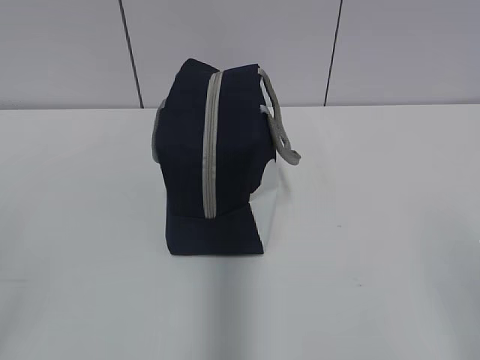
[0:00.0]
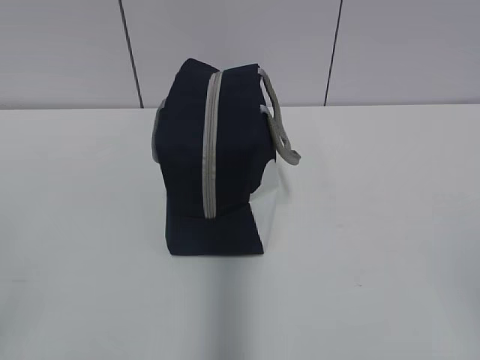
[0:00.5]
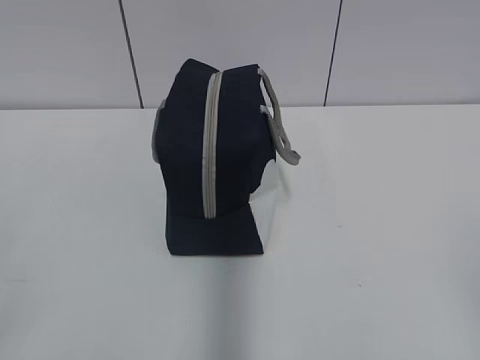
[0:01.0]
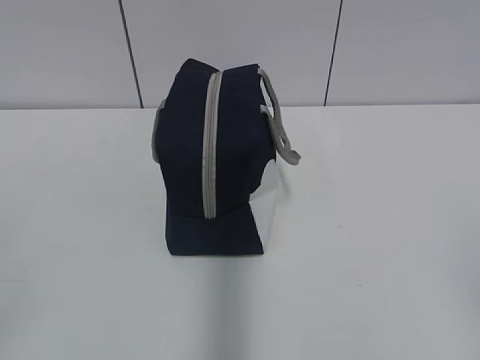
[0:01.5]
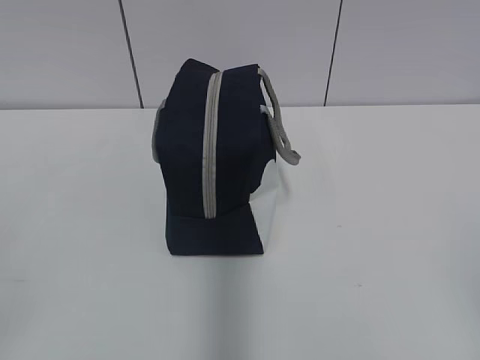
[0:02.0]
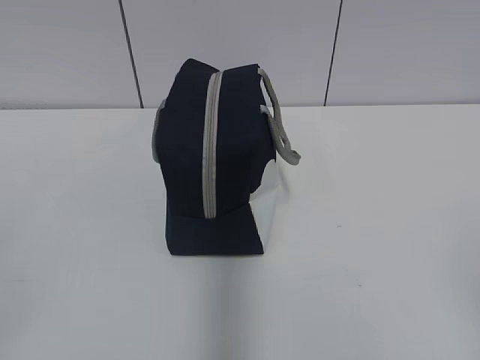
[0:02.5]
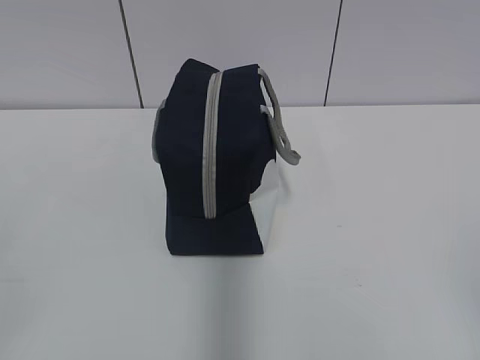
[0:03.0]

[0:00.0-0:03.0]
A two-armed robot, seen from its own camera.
0:01.5 to 0:03.0: The two grippers keep their place.
